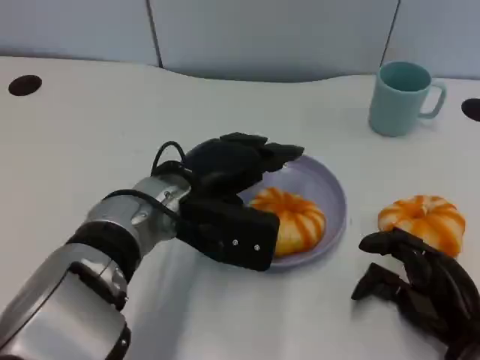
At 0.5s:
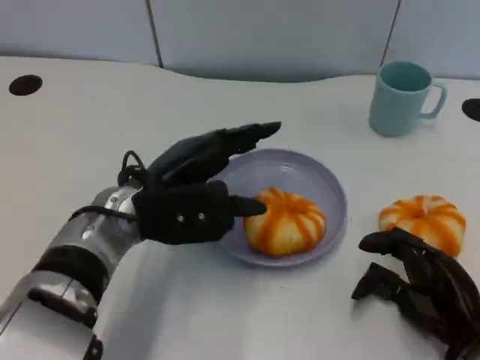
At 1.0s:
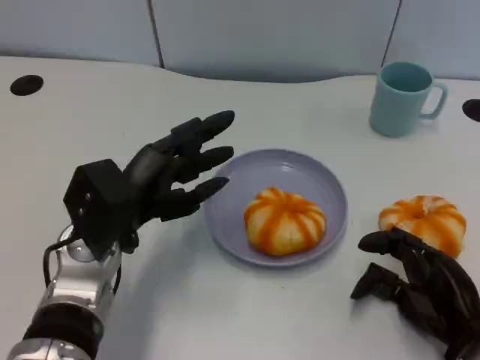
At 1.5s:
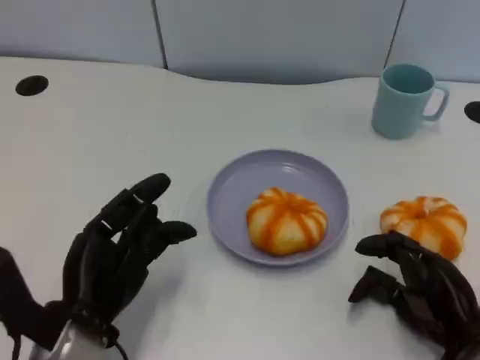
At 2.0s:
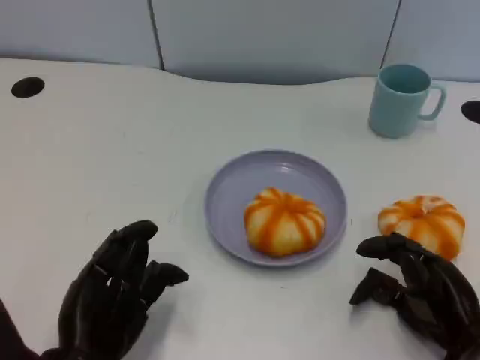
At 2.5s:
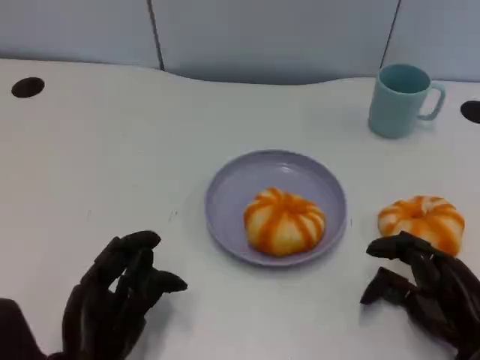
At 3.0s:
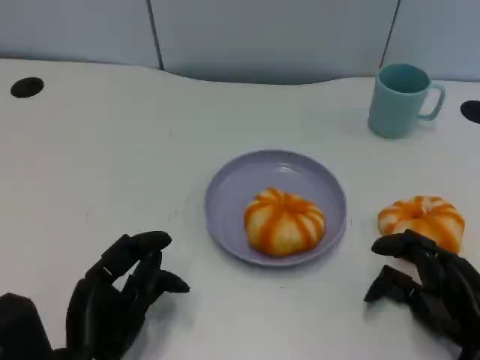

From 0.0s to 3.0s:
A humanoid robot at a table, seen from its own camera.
Task of the whole recording: Grasp the bread from the table and place it into the plate.
From 0.0s to 1.5s: The left hand goes approximately 15 cm backward, to the left and downward.
From 1.5s to 3.0s: The hands make only small movements.

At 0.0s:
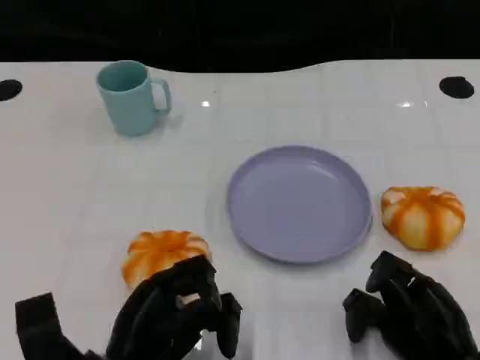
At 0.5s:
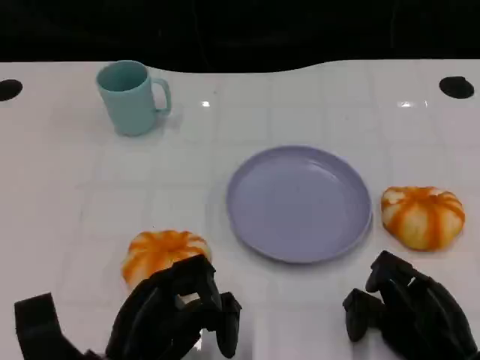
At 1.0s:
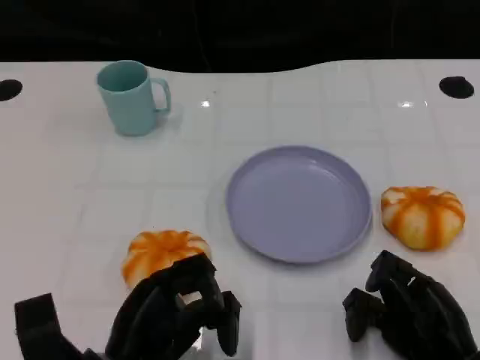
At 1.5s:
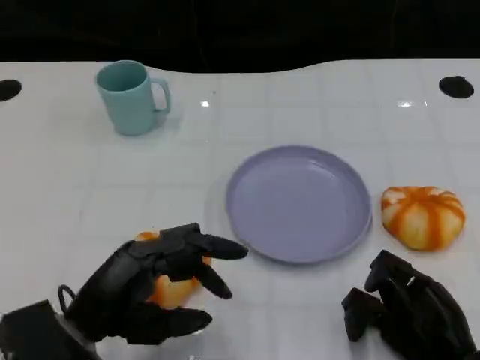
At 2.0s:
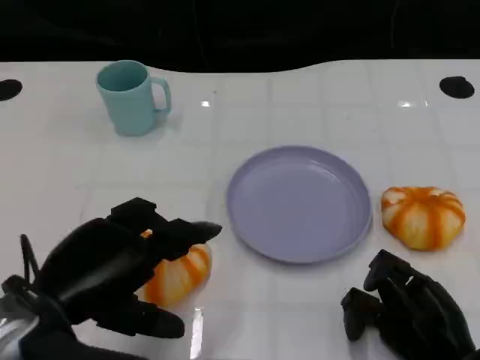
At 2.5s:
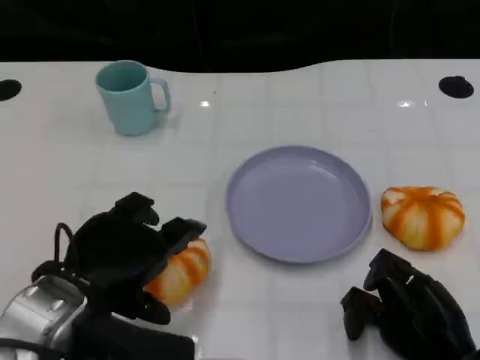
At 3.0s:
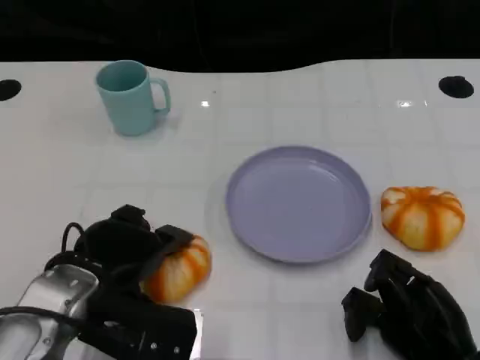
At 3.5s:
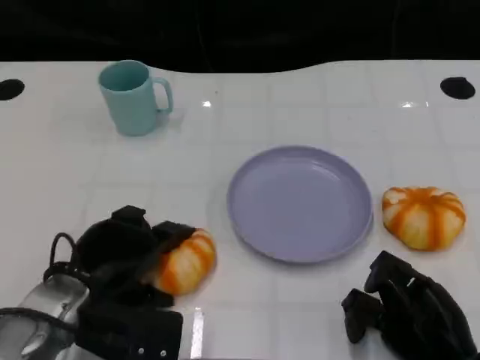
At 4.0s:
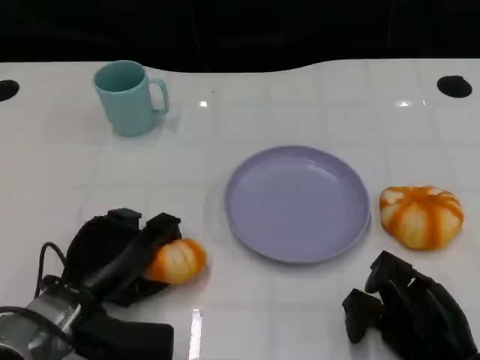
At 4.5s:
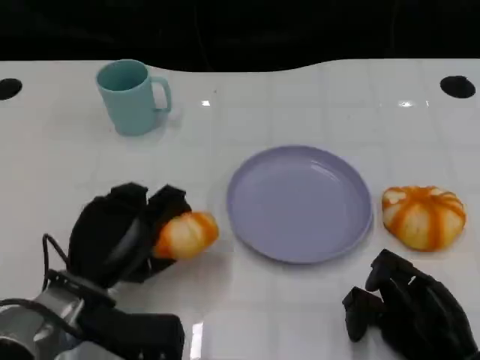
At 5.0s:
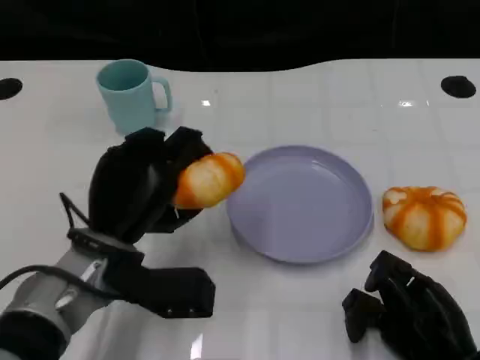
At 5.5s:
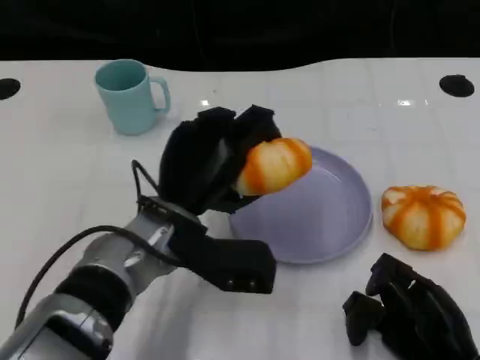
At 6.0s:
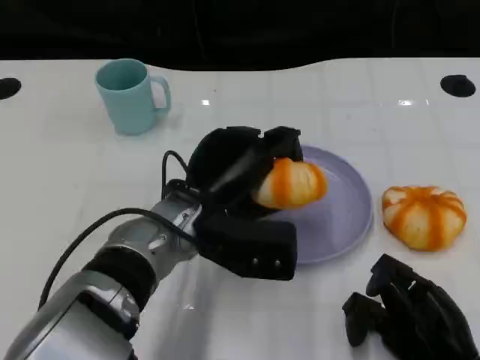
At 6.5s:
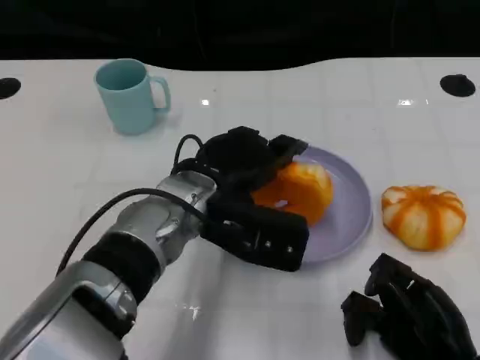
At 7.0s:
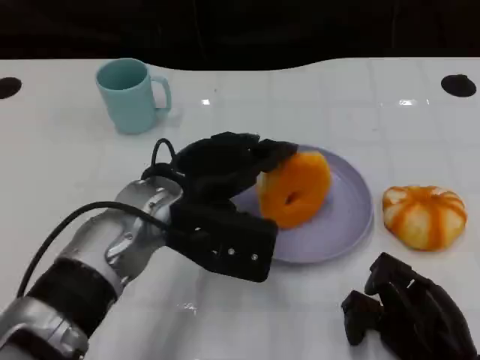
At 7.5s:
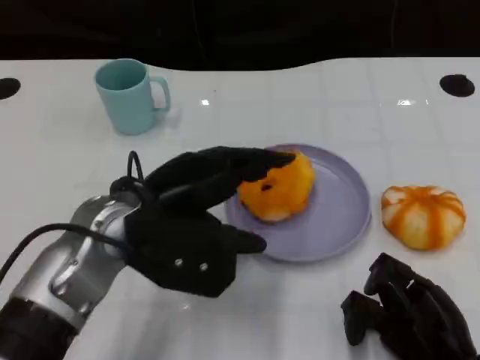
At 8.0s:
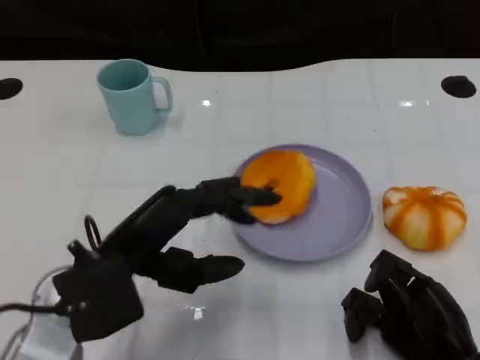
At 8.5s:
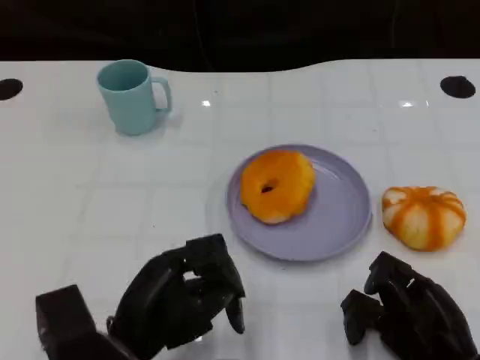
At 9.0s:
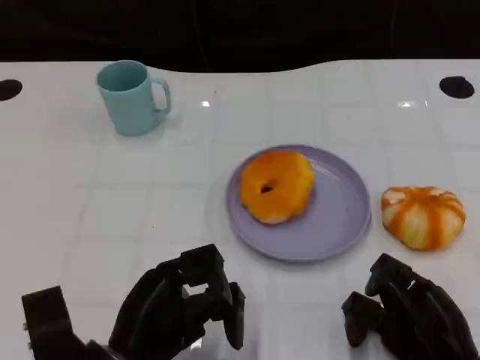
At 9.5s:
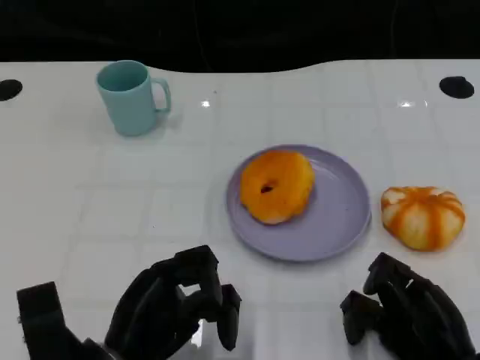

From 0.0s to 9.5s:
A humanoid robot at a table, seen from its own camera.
Task of the whole recording: Grasp the bread from the table and place it into the plate.
From 0.0s to 2.0s: The left hand heads upward, covering roughly 10 cm.
From 2.0s to 4.0s: The left hand travels downward and forward by some 10 cm.
From 4.0s to 5.5s: The left hand travels to the right and upward by approximately 15 cm.
From 5.5s to 7.5s: The left hand heads upward, covering some 5 cm.
From 7.5s to 9.5s: The left hand moves downward and backward, roughly 15 cm.

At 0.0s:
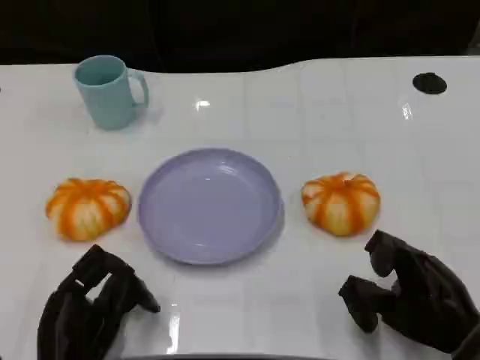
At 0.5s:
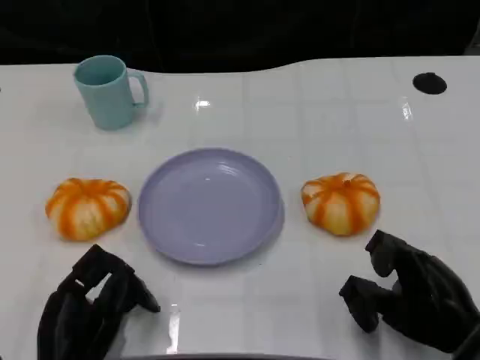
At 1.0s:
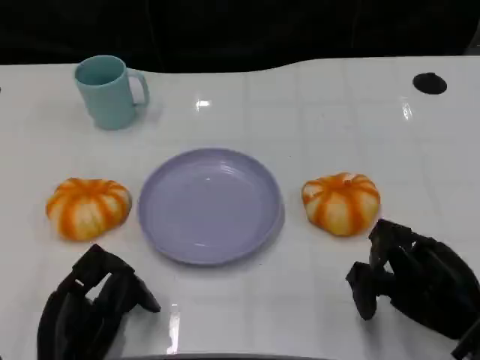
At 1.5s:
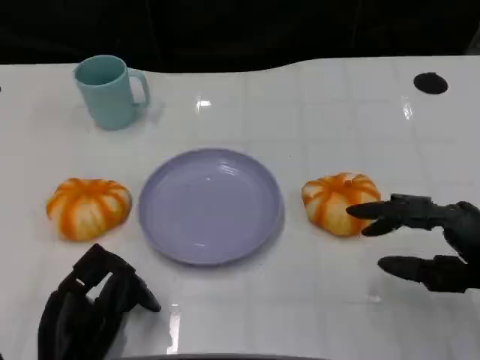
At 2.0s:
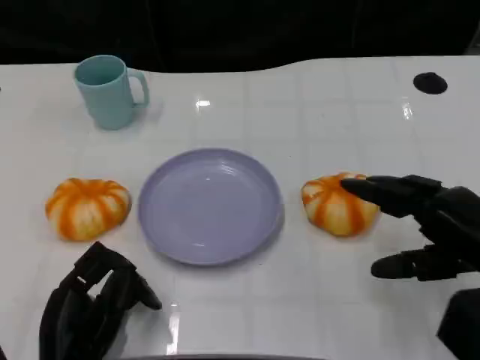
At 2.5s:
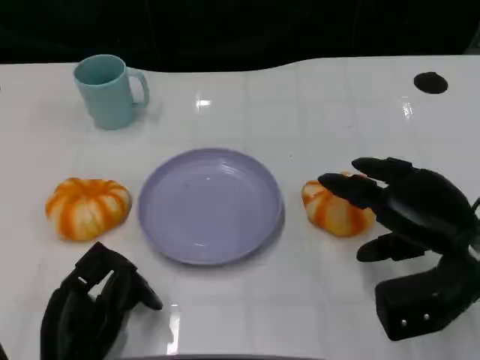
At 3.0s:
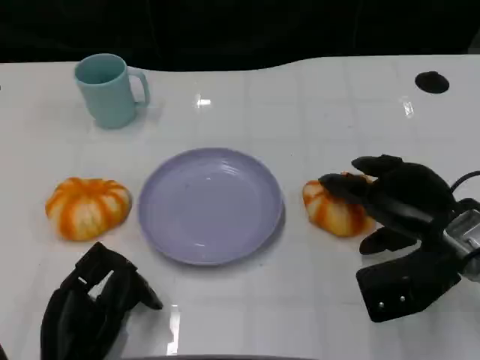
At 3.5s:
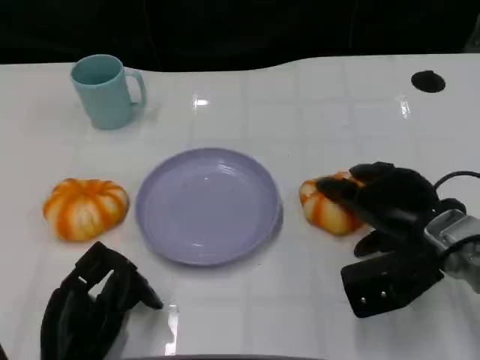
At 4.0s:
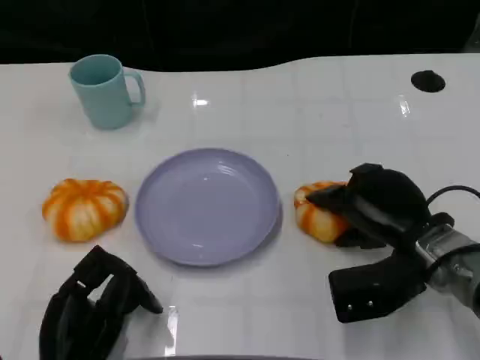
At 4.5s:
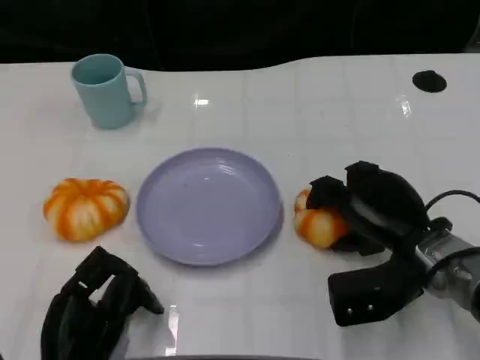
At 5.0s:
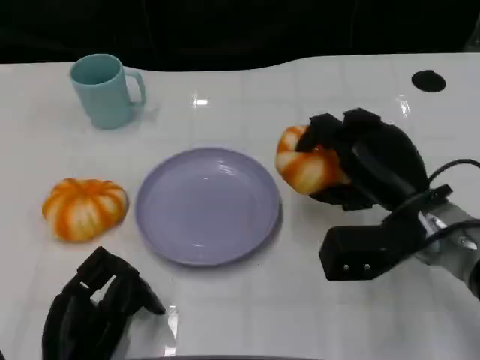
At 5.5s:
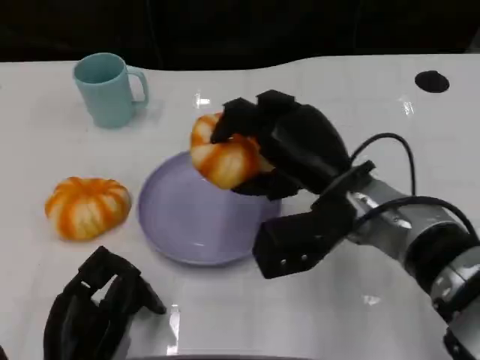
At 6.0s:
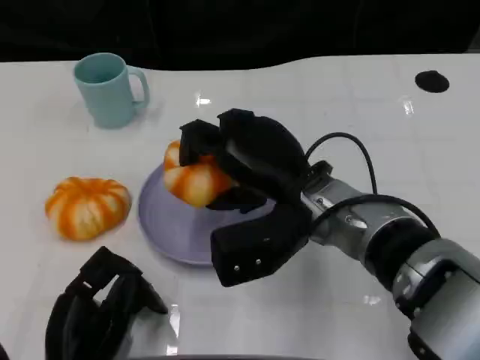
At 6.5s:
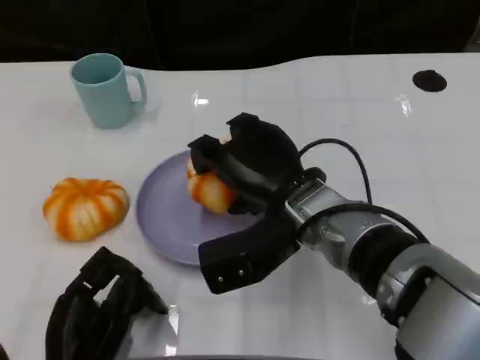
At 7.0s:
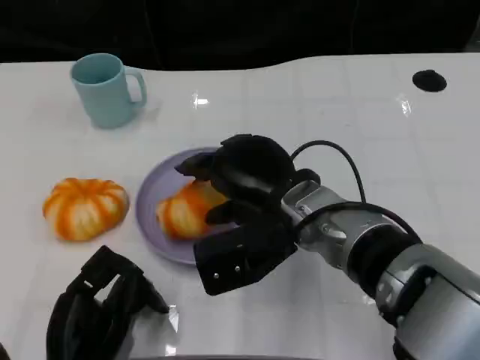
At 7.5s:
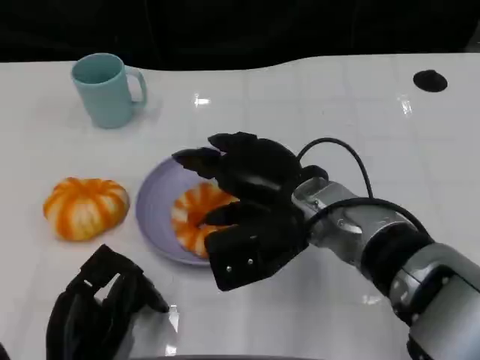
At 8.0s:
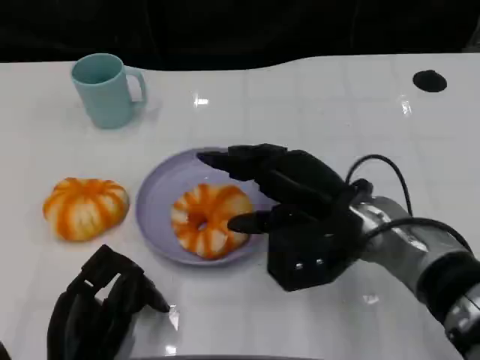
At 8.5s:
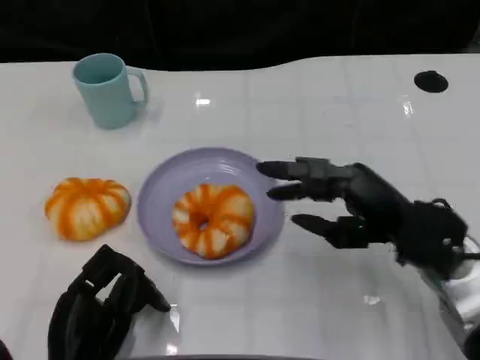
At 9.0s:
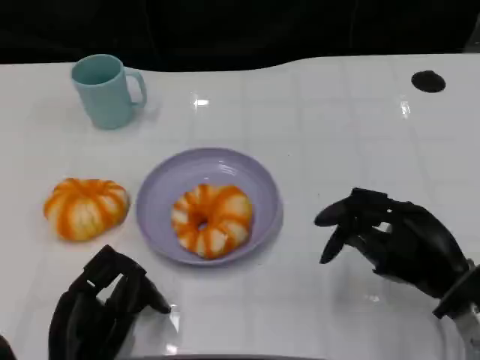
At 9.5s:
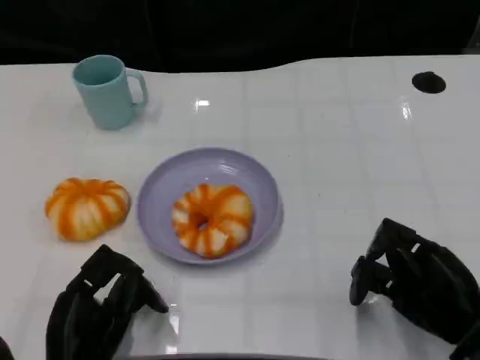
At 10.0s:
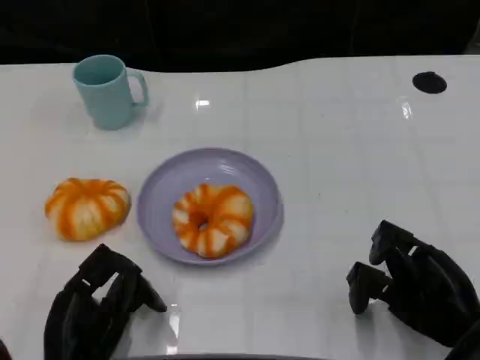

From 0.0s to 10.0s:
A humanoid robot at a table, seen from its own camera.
Task of the whole recording: Grasp the bread from the table and place it into the plate.
From 0.0s to 2.0s: The right hand moves upward, roughly 10 cm.
From 2.0s to 4.0s: The right hand is displaced to the left and forward by some 10 cm.
From 4.0s to 6.0s: The right hand goes approximately 15 cm to the left and upward.
From 6.0s to 8.0s: The right hand heads to the right, covering about 5 cm.
From 8.0s to 10.0s: The right hand shifts roughly 15 cm to the right, backward and downward.

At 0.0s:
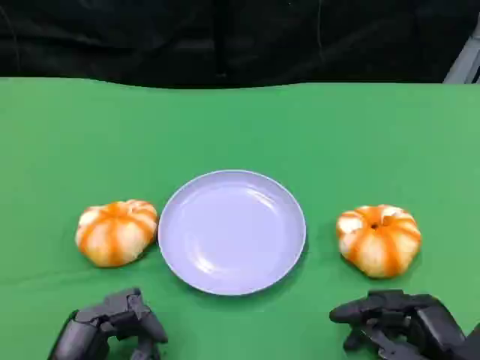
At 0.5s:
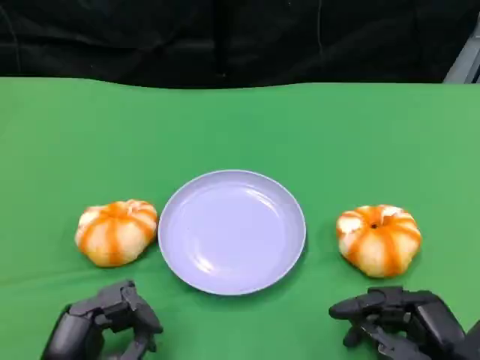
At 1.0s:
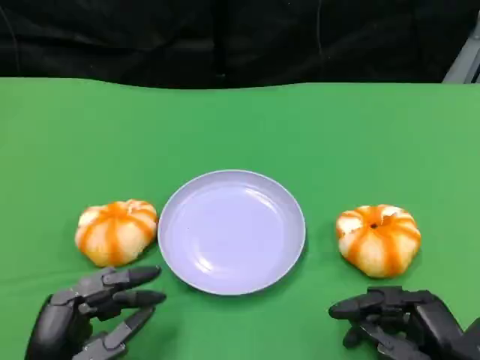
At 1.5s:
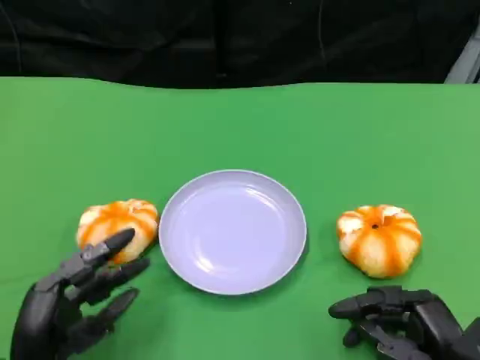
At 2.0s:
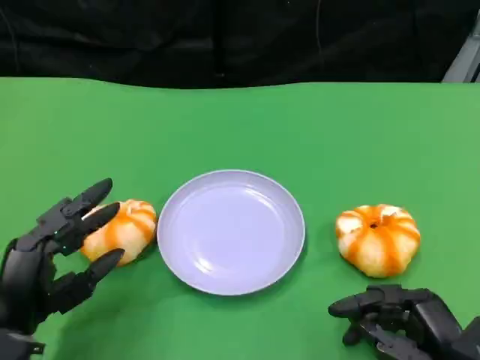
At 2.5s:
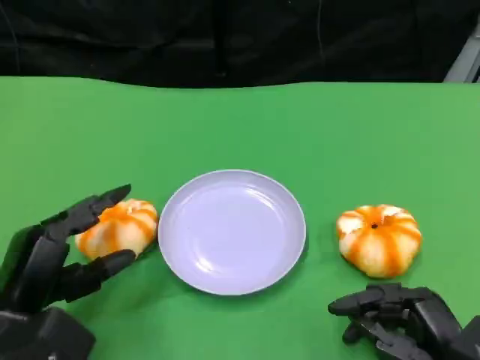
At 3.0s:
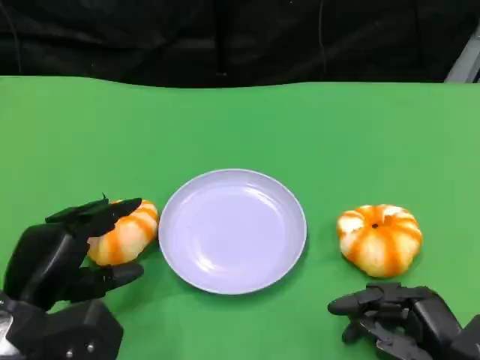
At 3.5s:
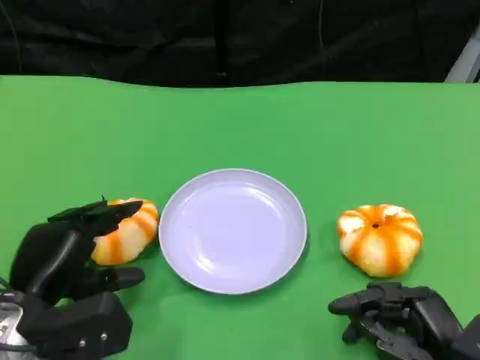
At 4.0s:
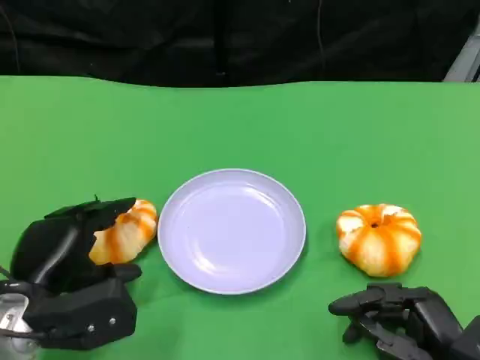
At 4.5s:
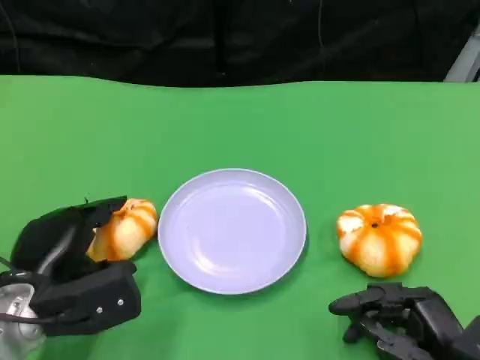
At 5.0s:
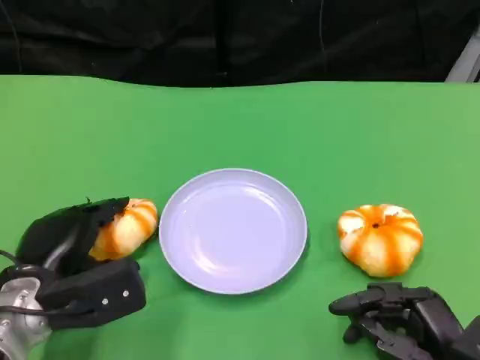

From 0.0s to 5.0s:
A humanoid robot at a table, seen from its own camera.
Task of the whole recording: Grasp the bread from the table and place it into the plate.
From 0.0s to 2.5s: The left hand shifts approximately 5 cm forward.
